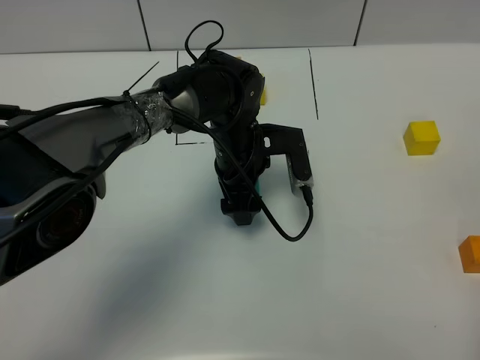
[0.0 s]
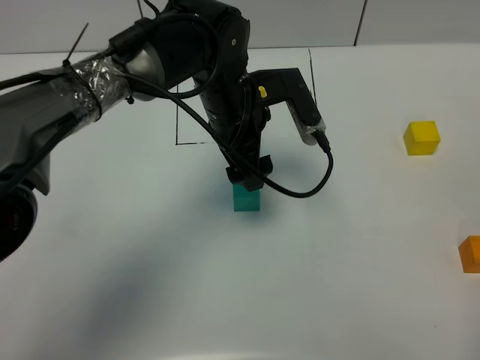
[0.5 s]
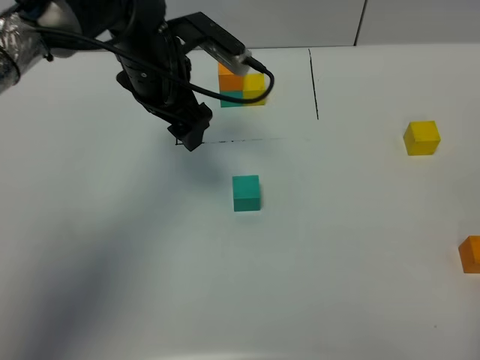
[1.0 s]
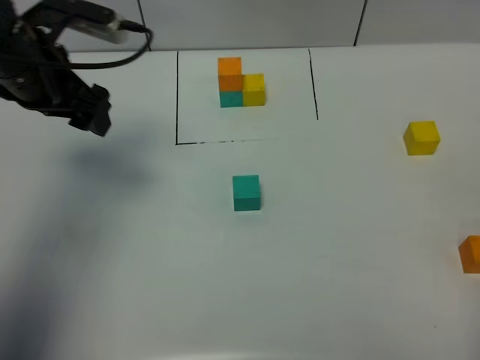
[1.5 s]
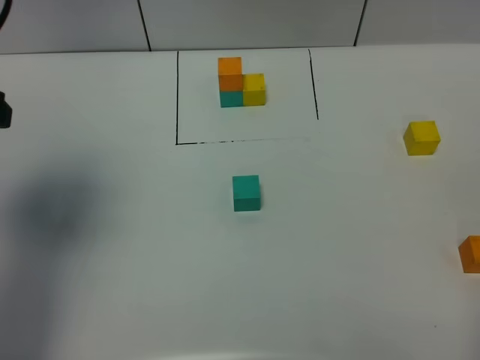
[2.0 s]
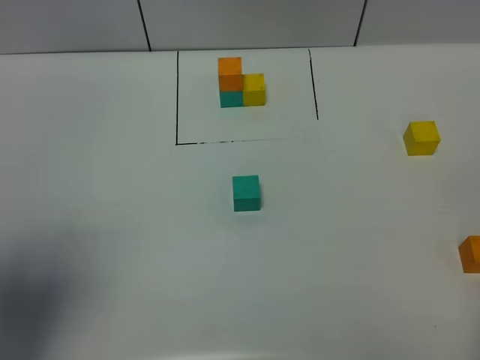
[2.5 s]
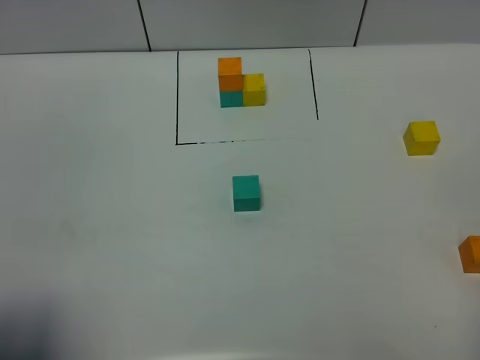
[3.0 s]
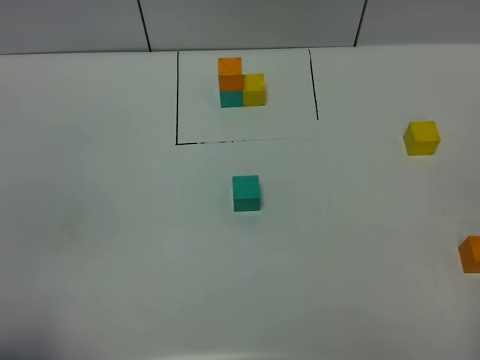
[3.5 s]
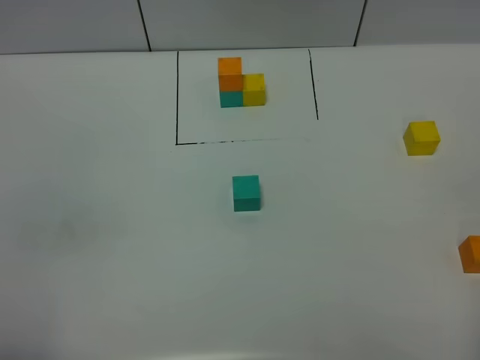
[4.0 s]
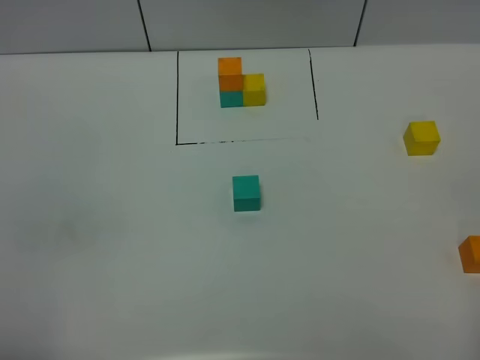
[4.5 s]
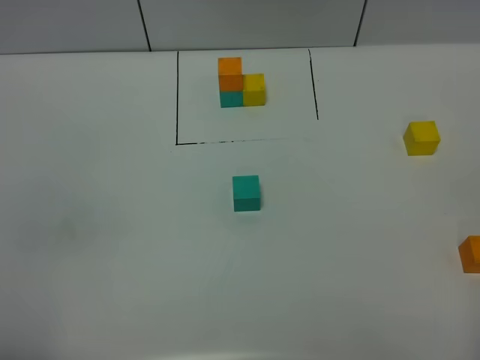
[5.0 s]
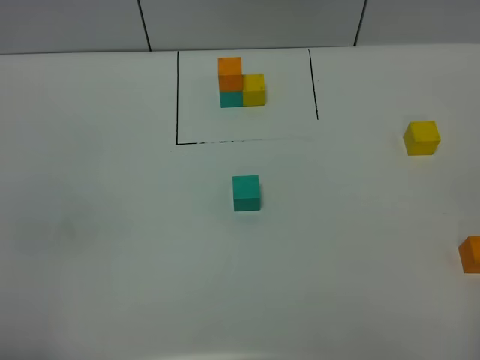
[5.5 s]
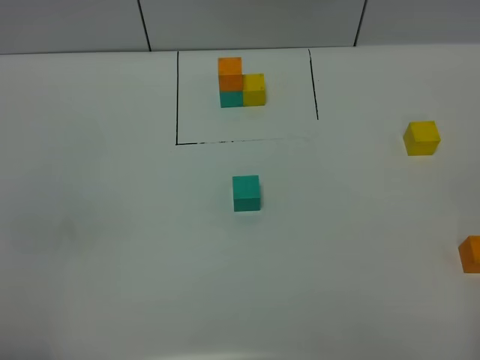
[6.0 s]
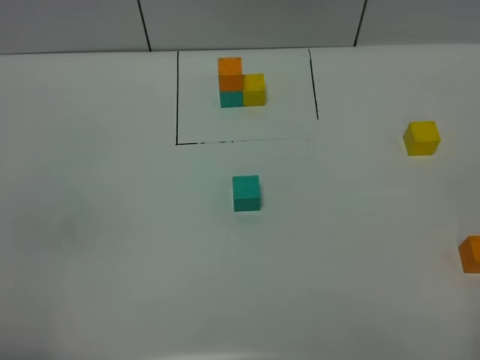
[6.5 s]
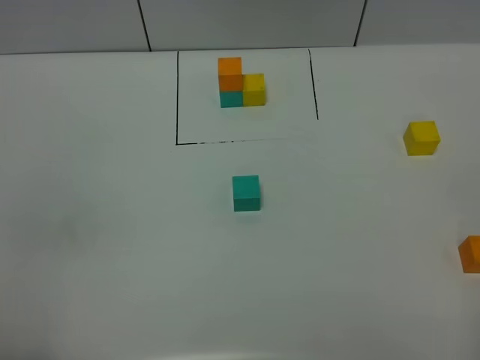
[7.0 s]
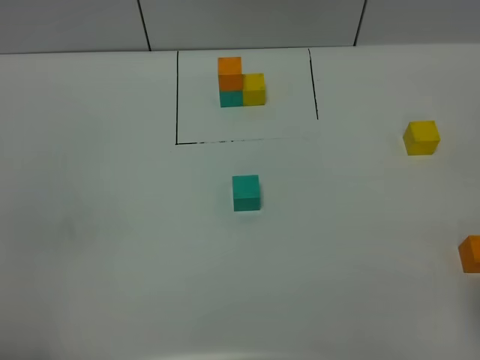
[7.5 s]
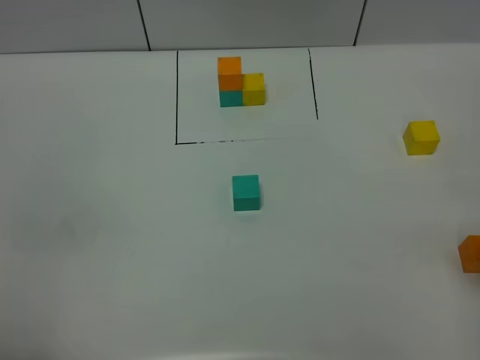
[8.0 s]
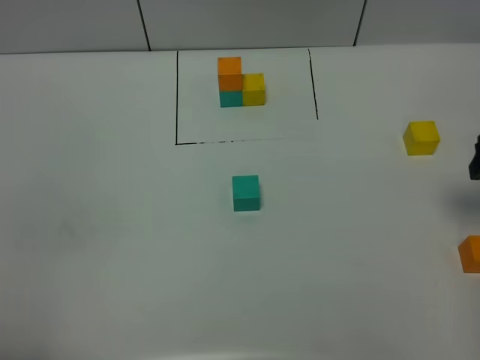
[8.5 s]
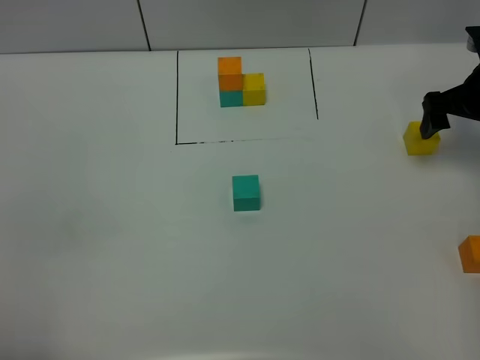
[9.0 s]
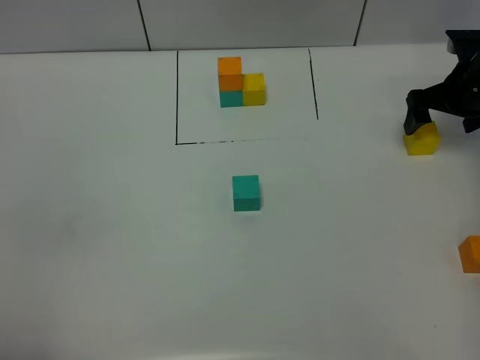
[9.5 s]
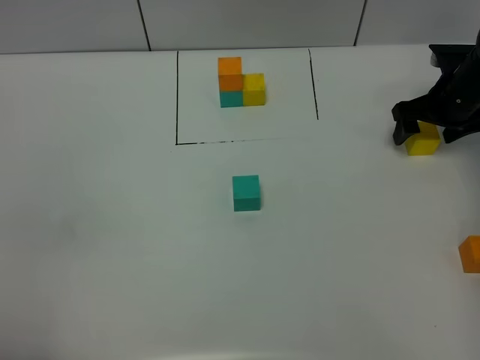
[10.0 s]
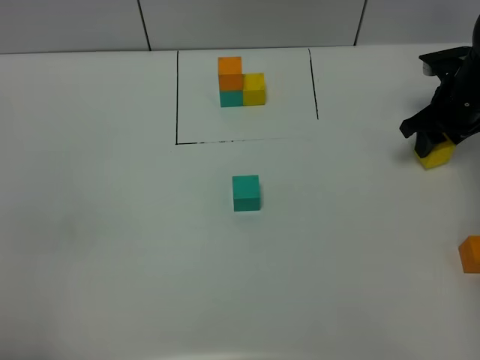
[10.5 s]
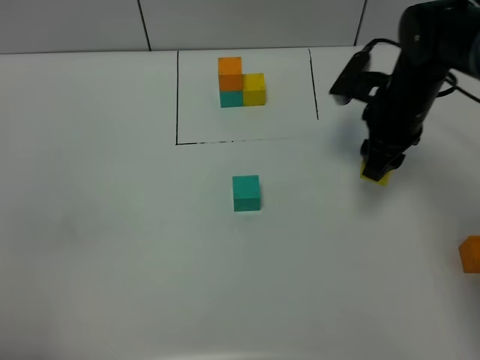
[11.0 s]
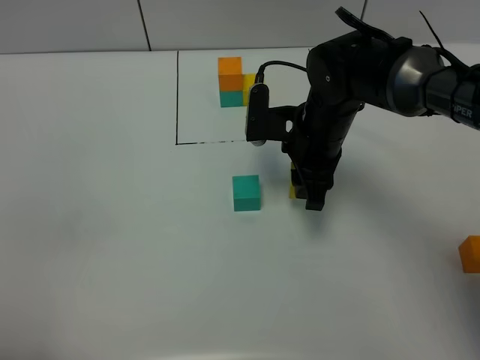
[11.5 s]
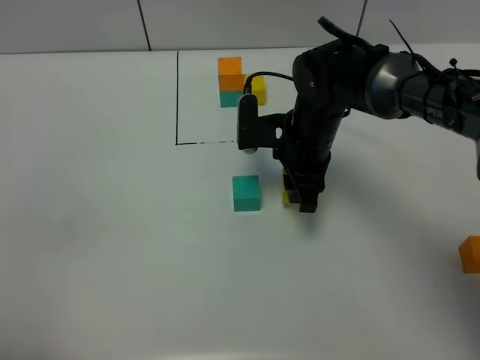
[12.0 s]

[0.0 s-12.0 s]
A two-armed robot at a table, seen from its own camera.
Task of the whole recording: According to the building block template in front, assemble the scattered blocks together.
0.0 to 2.0 s: The left gripper moves to the left, upward and backward, approximately 40 cm.
2.0 to 4.0 s: The left gripper goes approximately 25 cm backward.
4.0 to 6.0 s: Both grippers stay put.
8.0 to 10.0 s: The right gripper is displaced forward and downward by some 30 cm, and closes.
10.0 to 12.0 s: The right gripper is displaced to the left by roughly 25 cm, and closes.

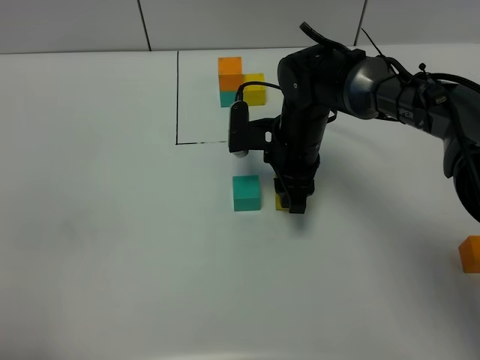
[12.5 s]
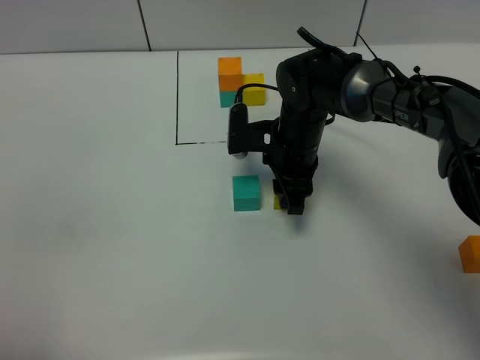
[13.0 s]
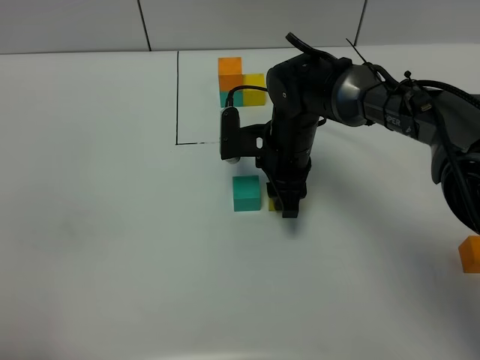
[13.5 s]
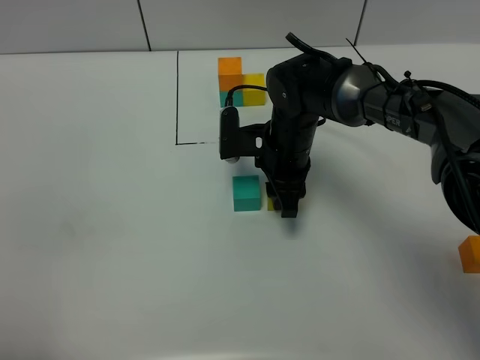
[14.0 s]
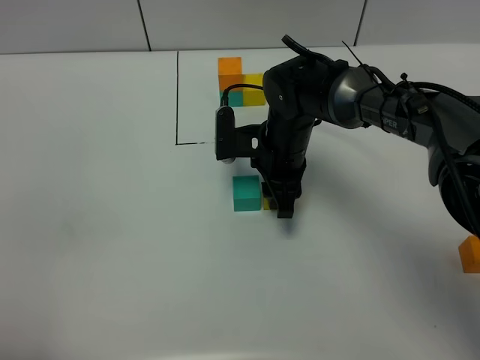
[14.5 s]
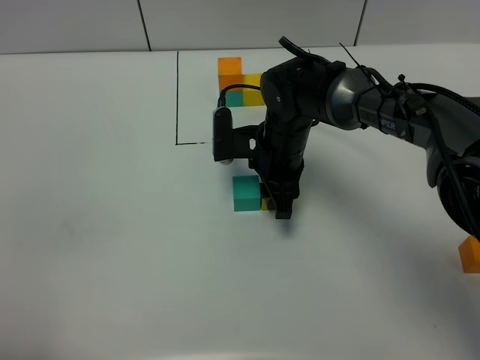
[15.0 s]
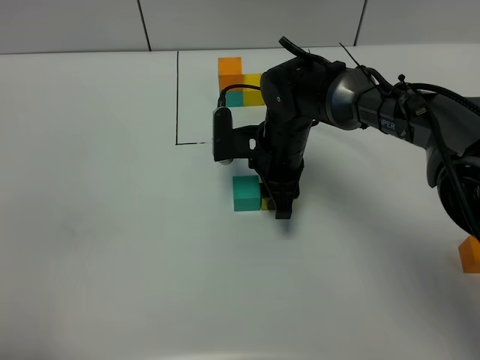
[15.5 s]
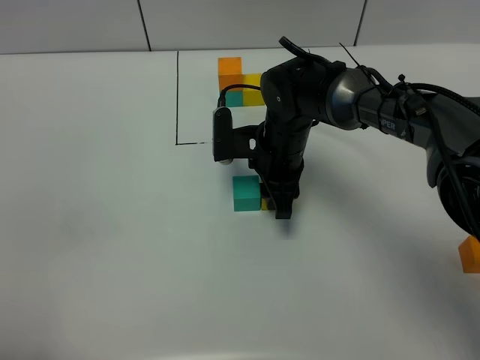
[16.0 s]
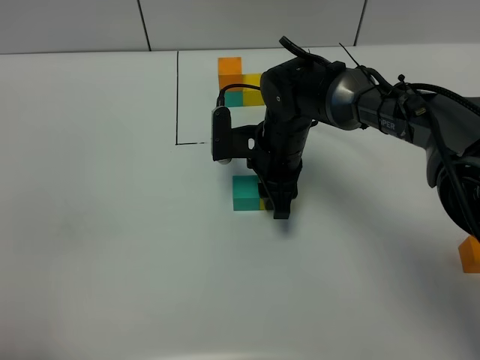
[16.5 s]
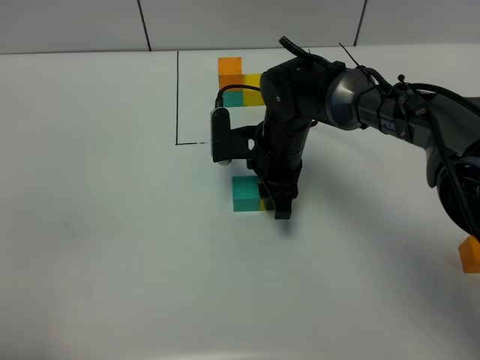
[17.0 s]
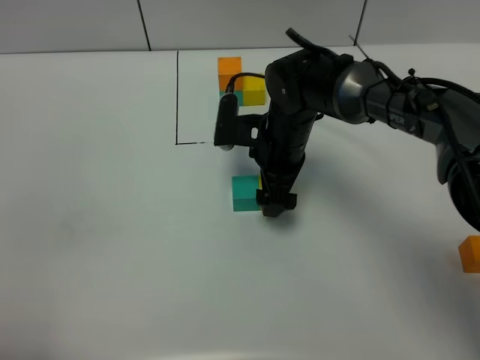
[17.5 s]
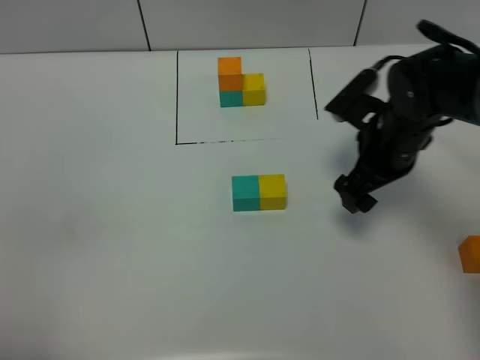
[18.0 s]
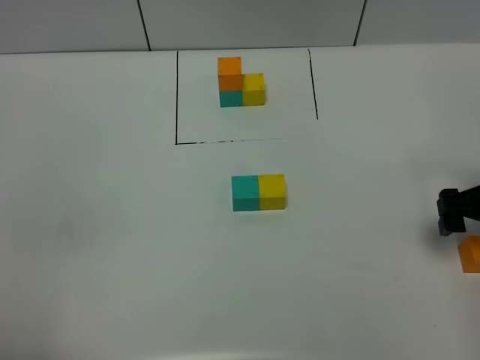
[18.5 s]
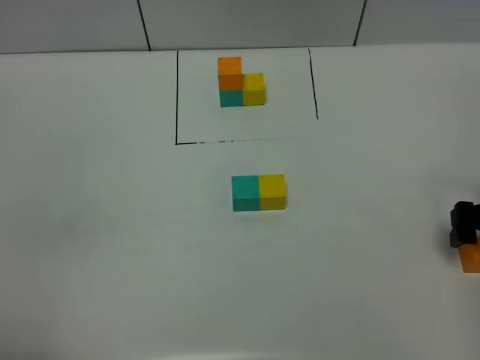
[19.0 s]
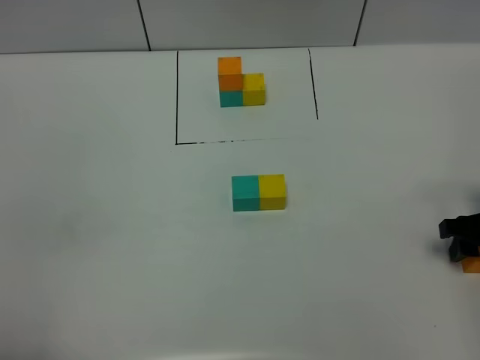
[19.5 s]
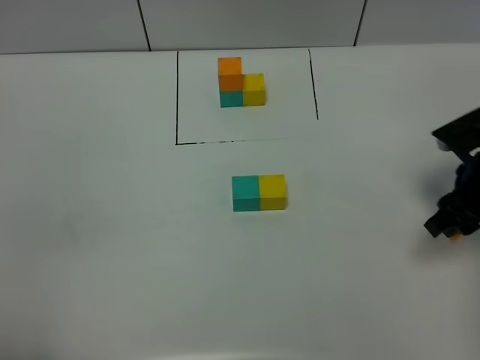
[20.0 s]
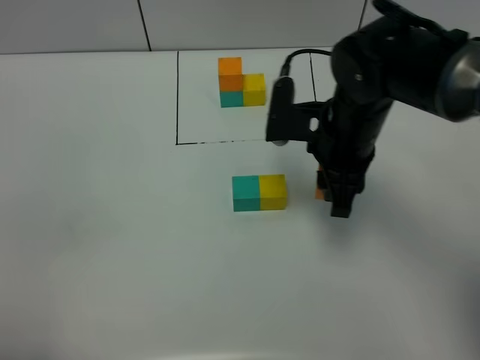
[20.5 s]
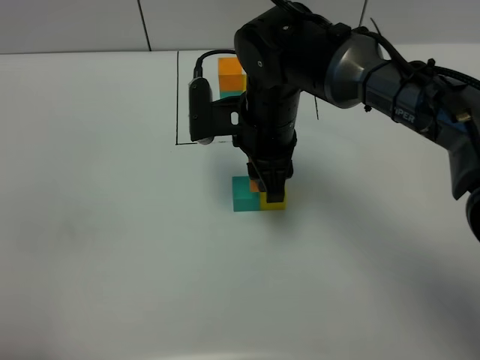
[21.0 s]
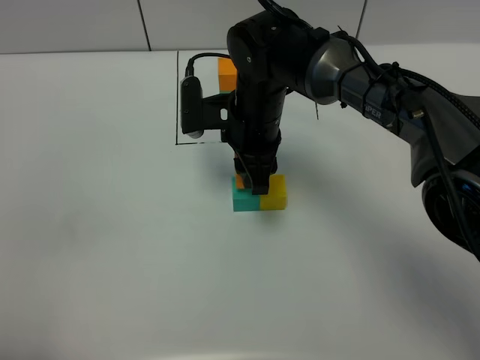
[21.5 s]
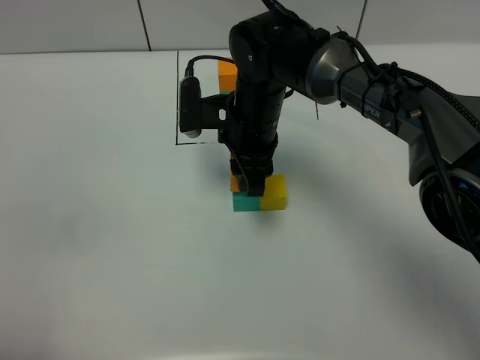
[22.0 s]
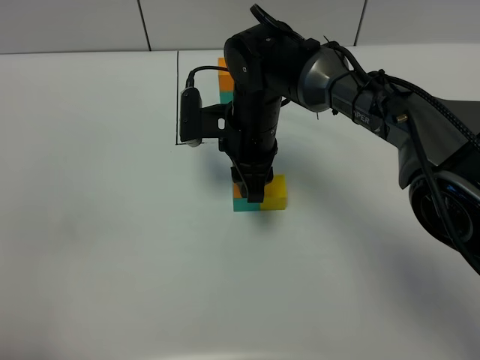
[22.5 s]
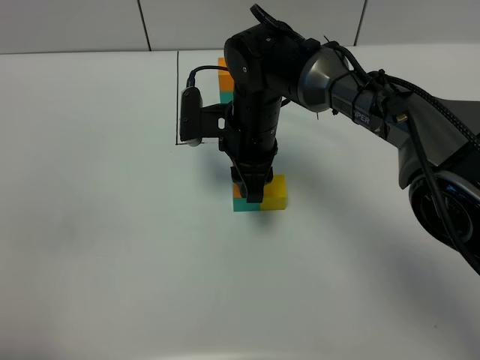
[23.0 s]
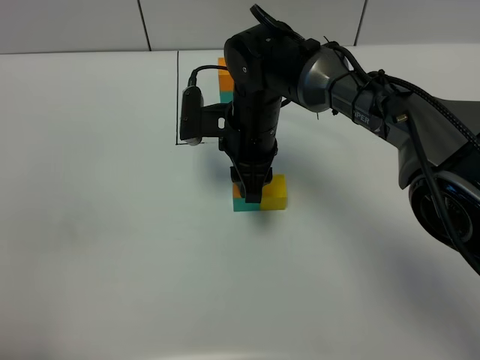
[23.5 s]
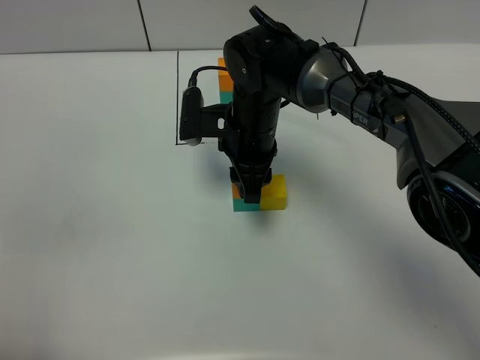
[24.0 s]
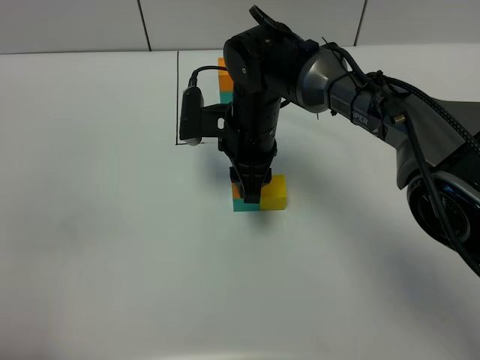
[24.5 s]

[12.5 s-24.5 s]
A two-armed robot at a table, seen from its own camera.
Task of the whole recording: According to the building block template in front, assemble the scattered blocks together.
Step, 12.5 to 17.5 s: Put the yellow build block on the right of the green build block.
12.5 to 14.5 s: There are only small adjustments of the grippers.
14.5 to 16.5 s: Both grippers stay put.
16.5 to 18.5 s: The right gripper travels to the right by approximately 25 cm, and opens up.
18.5 to 20.5 s: The right gripper heads to the left, covering about 20 cm, and closes up.
20.5 to 22.5 s: The right gripper moves to the left and downward, about 10 cm.
22.5 to 24.5 s: Both grippers stay put.

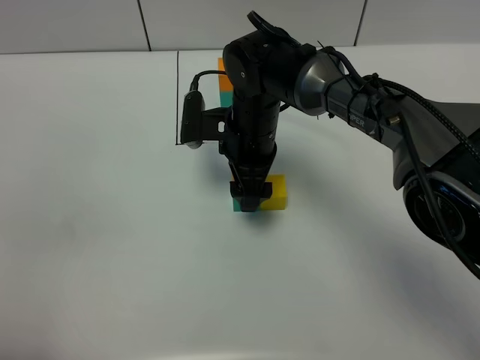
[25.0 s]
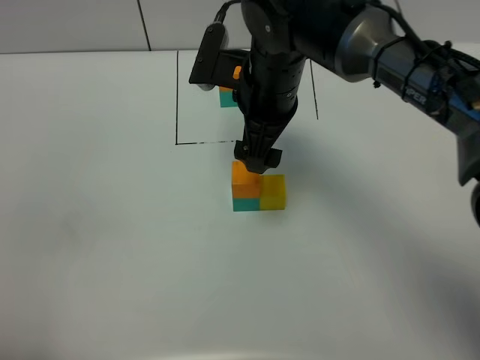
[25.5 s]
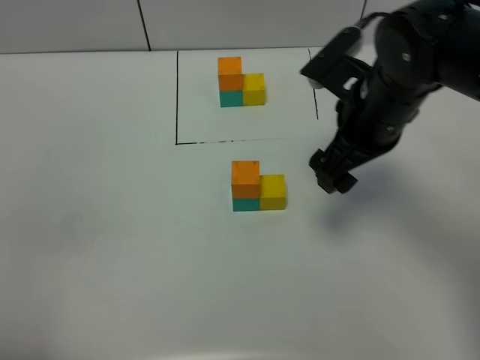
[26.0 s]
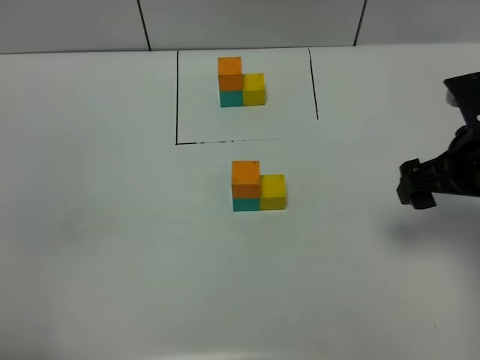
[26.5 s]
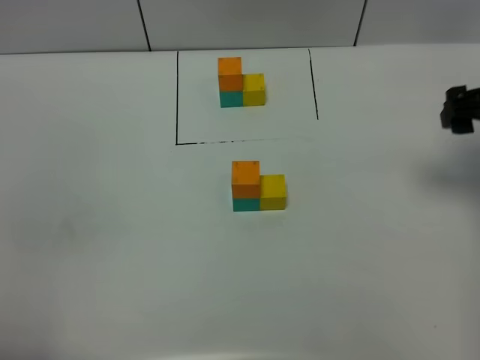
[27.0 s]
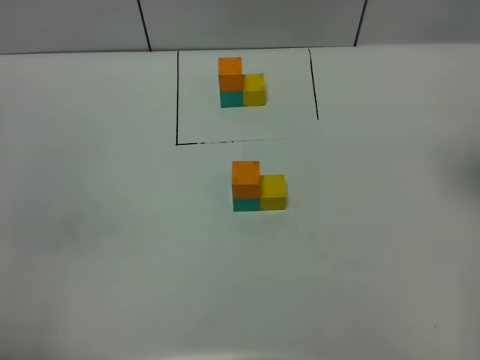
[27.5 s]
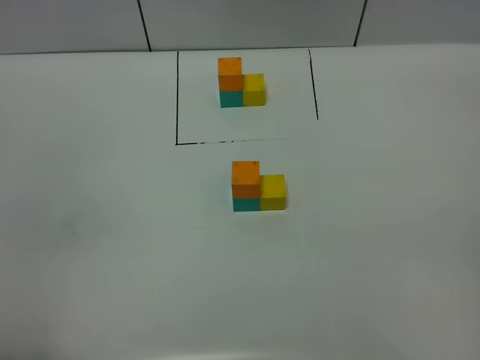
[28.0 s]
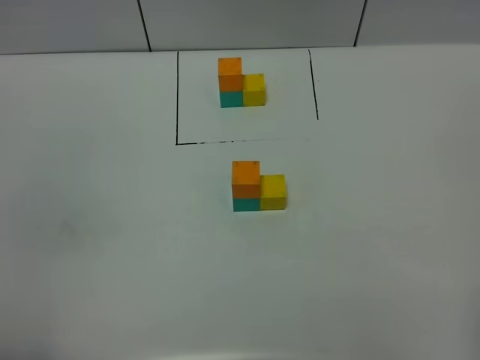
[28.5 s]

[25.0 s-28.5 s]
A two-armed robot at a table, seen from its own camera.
Task of the whole recording: According to the building block template in front, assemble the scattered blocks together.
25.0 to 27.0 s: The right gripper heads to the right, covering approximately 30 cm.
27.0 to 28.5 s: The right gripper shifts approximately 30 cm backward.
